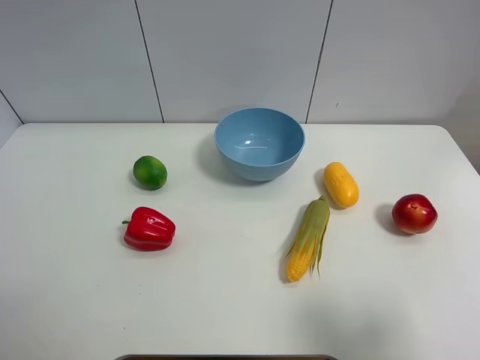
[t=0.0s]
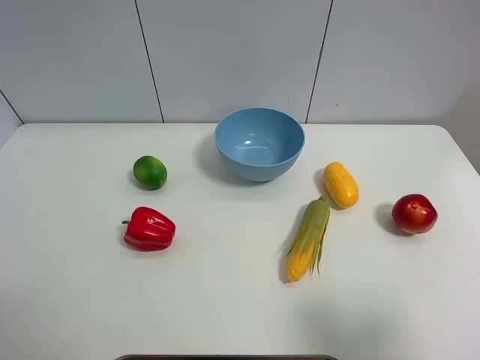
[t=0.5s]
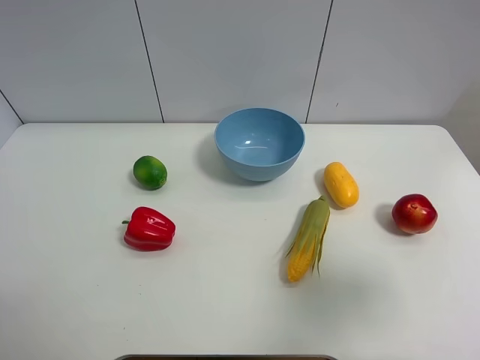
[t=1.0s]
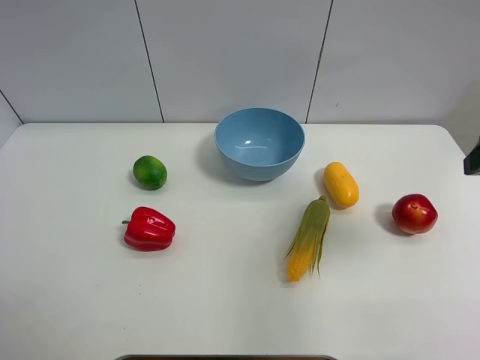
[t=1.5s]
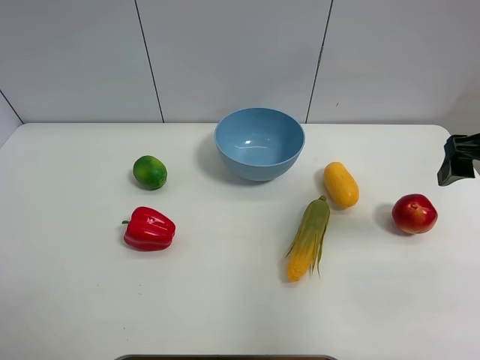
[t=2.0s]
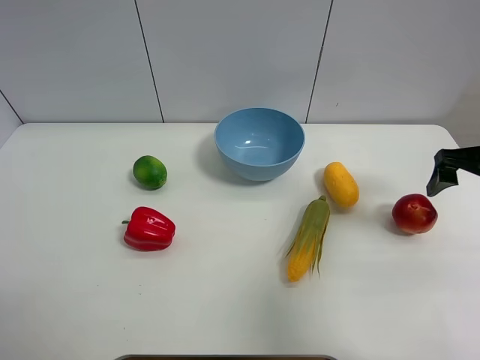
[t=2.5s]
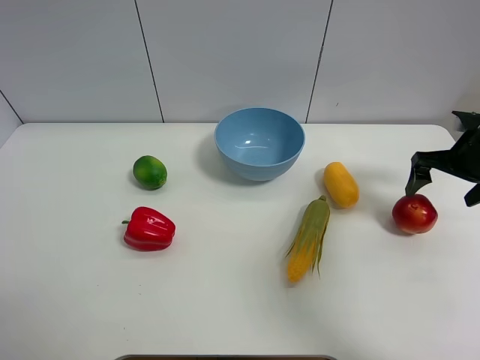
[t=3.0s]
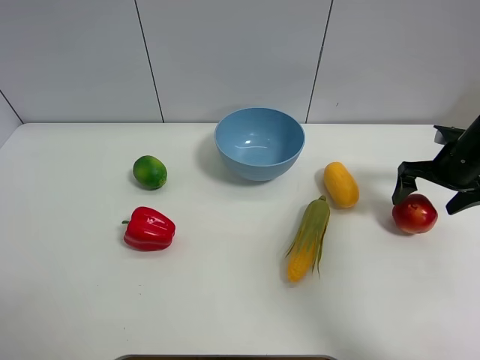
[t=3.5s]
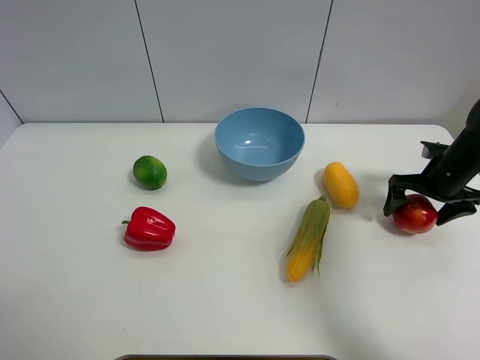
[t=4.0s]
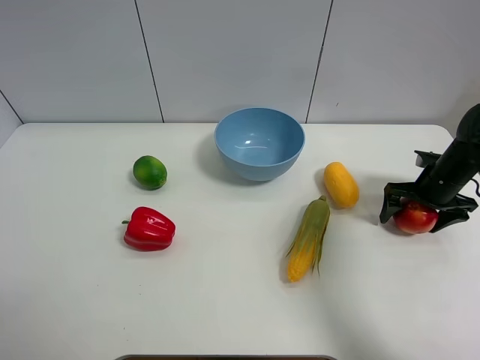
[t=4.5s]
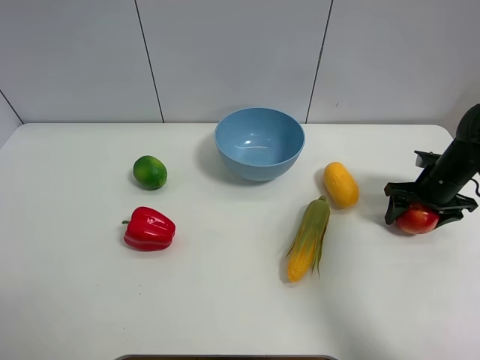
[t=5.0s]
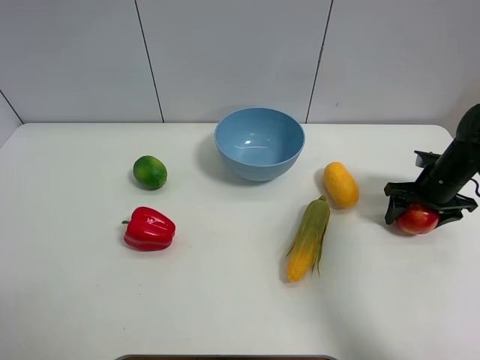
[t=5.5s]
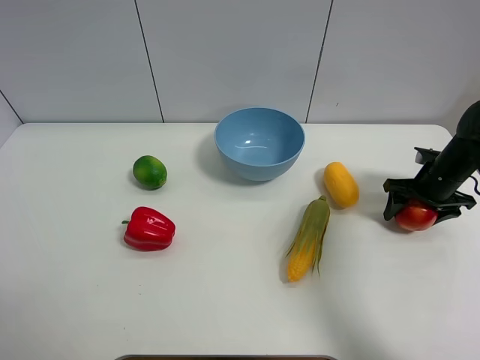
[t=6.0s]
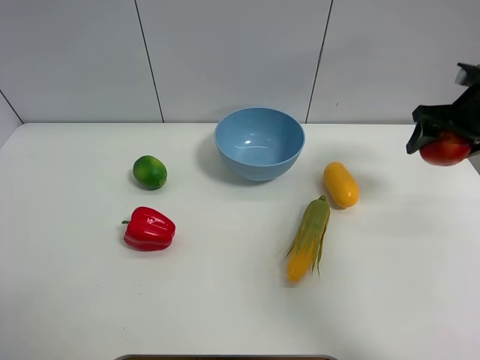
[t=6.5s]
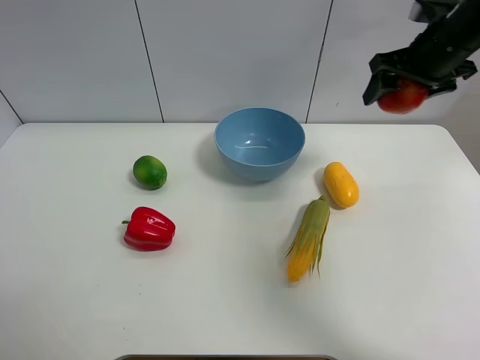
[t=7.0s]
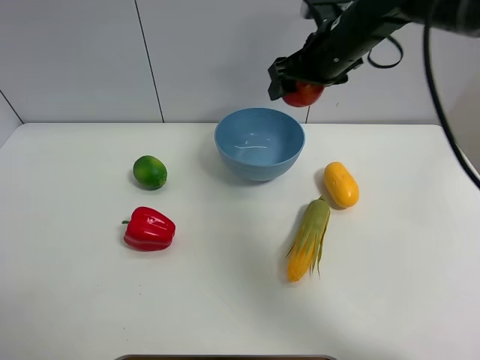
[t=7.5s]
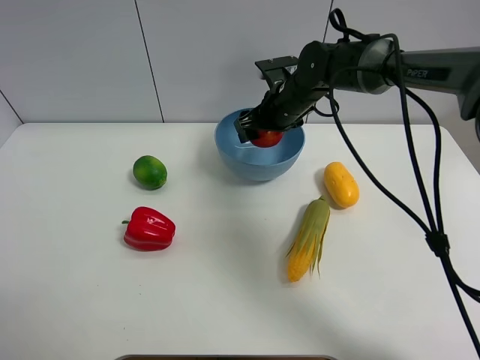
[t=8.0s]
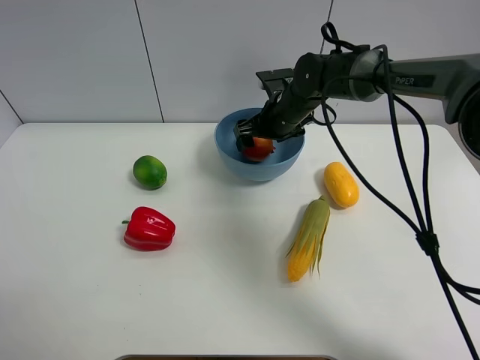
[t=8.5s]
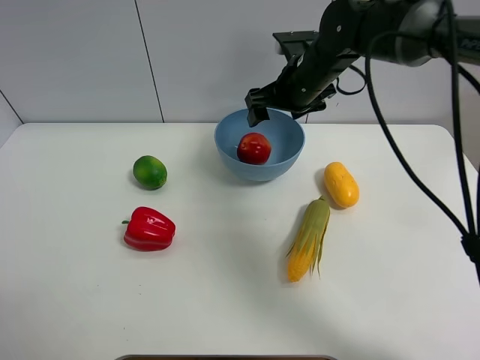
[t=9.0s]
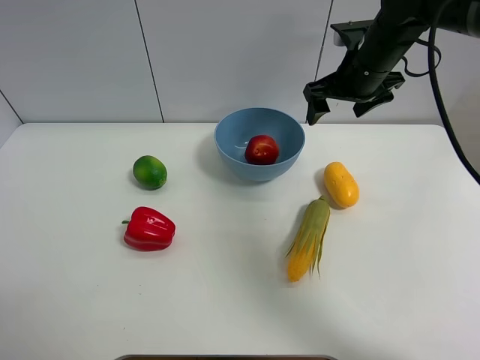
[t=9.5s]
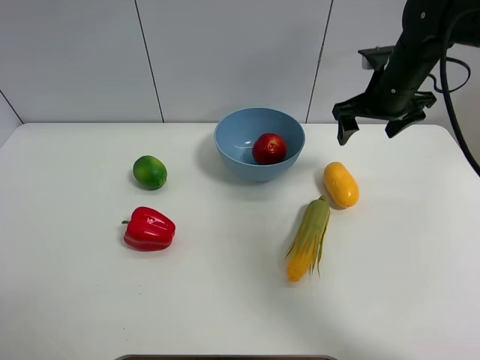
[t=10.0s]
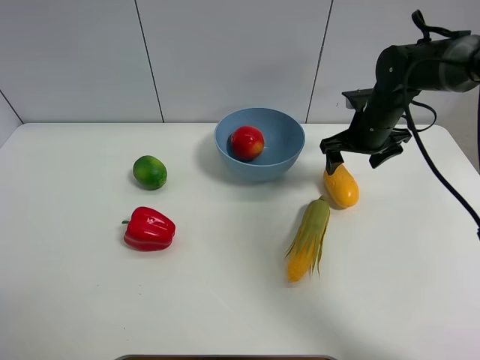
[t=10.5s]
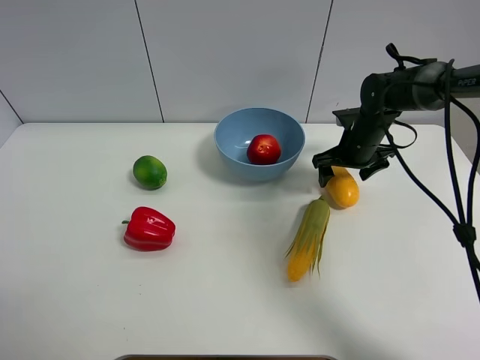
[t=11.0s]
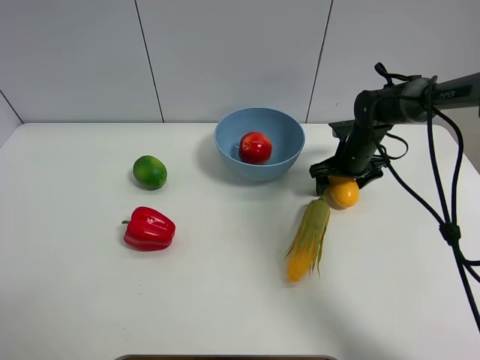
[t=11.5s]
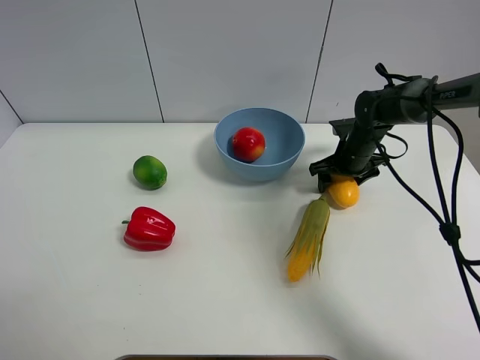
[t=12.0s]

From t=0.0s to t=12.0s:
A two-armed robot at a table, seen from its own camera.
Task of the whole recording: Put the three fruits on the table into a bowl.
Step, from t=0.0s to t=5.0s: Grasp the pomegranate with right gripper.
Step, from t=5.5s to t=8.5s: Place the pomegranate in the blue bowl with right gripper.
From t=0.0s to t=2.0s: The right gripper goes roughly 25 cm forward.
From t=2.0s to t=4.0s: The right gripper goes approximately 20 cm downward and forward.
From t=4.0s to t=6.0s: The right gripper closes.
From t=6.0s to t=8.0s: The right gripper heads to the left, covering roughly 30 cm.
From t=8.0s to t=10.0s: The right gripper goes about 15 cm to the right.
From t=10.0s to t=12.0s: The right gripper goes about 15 cm downward.

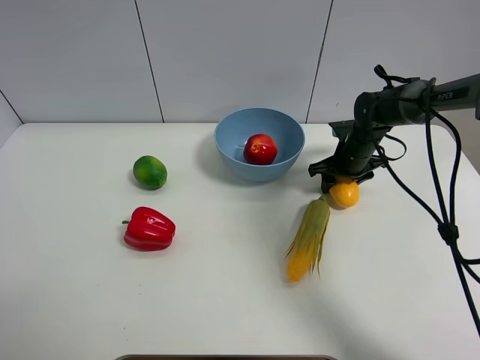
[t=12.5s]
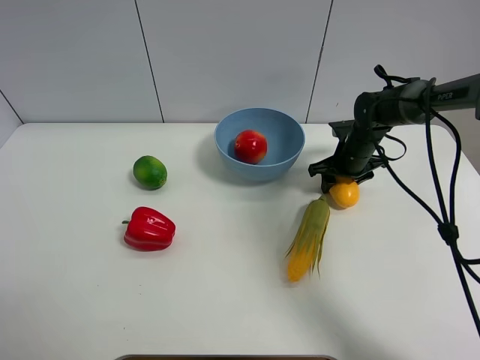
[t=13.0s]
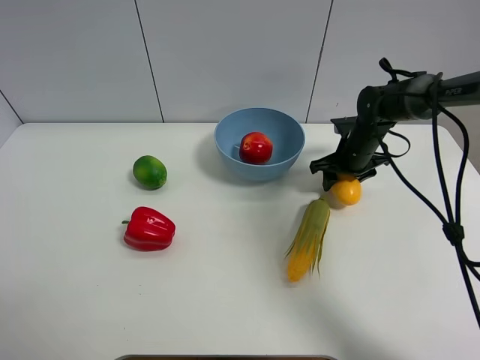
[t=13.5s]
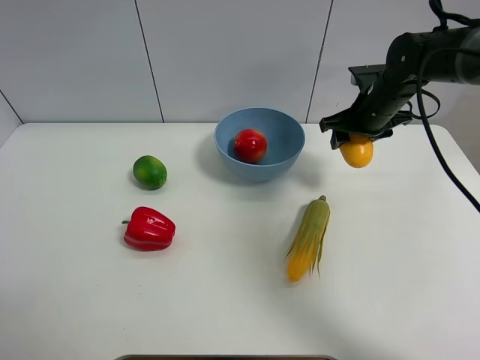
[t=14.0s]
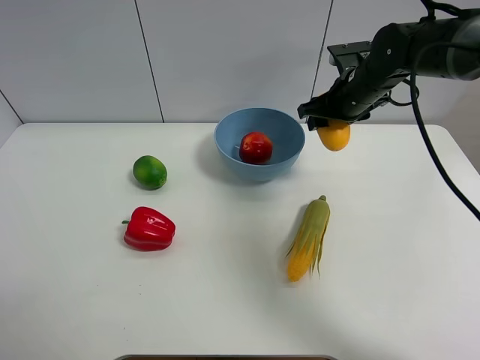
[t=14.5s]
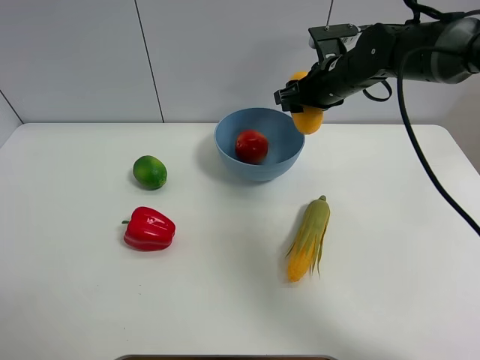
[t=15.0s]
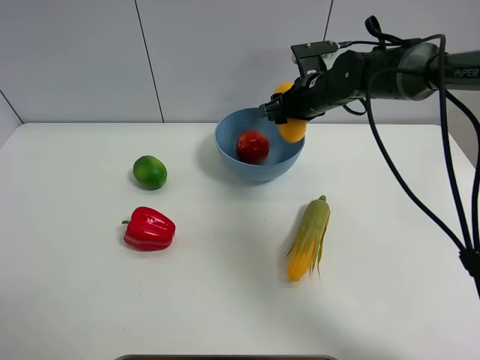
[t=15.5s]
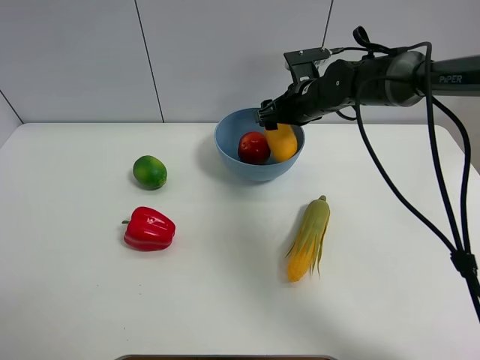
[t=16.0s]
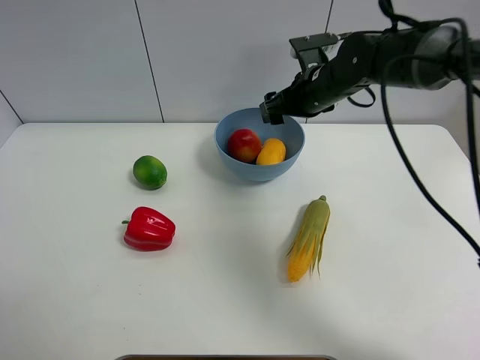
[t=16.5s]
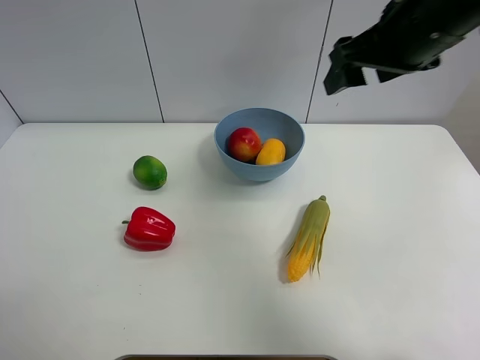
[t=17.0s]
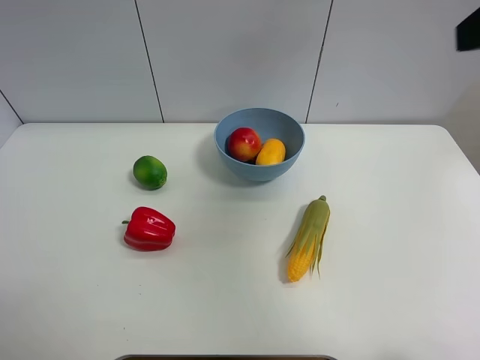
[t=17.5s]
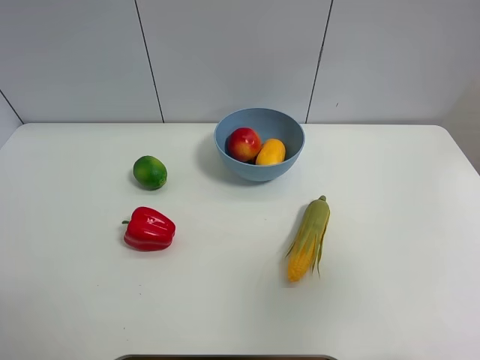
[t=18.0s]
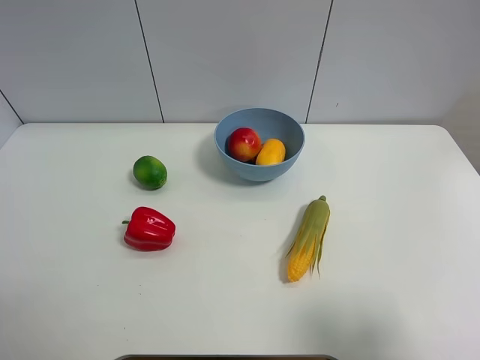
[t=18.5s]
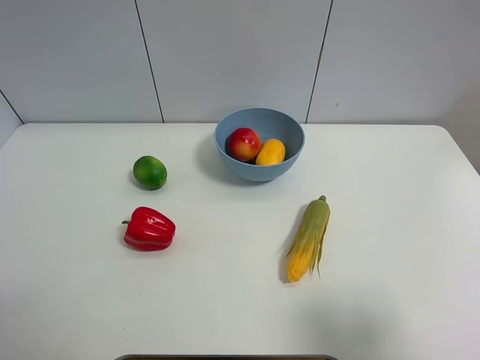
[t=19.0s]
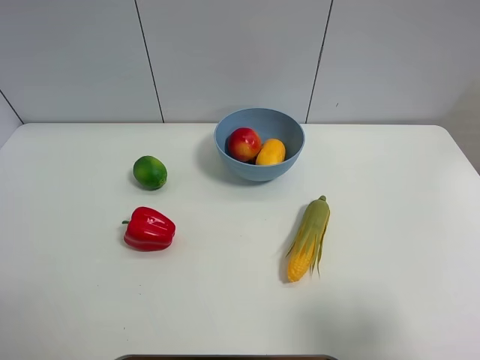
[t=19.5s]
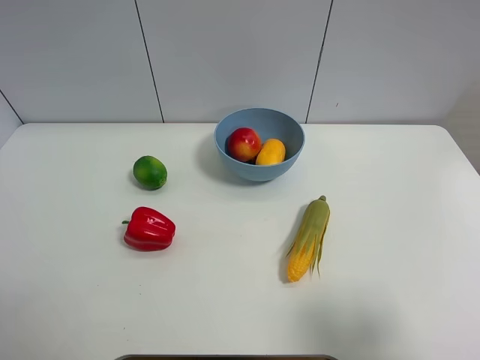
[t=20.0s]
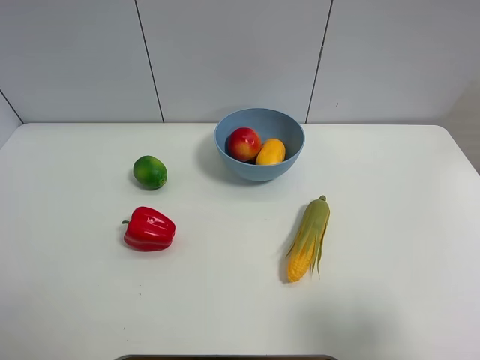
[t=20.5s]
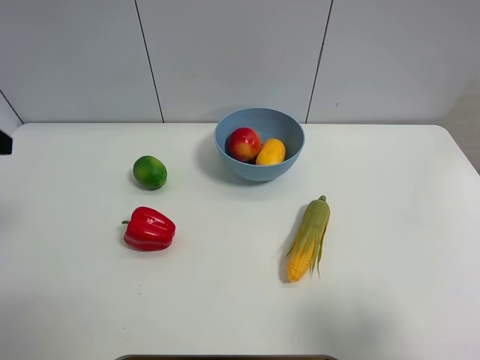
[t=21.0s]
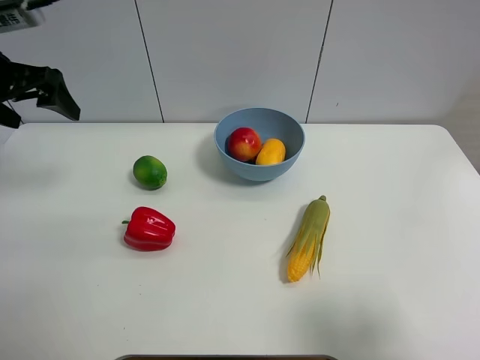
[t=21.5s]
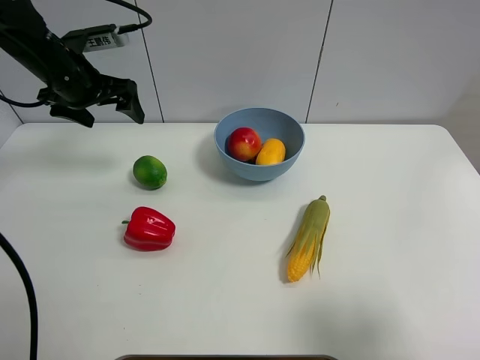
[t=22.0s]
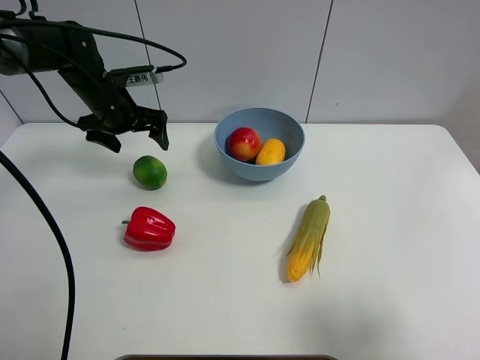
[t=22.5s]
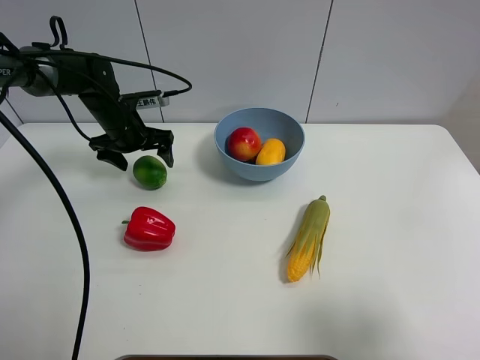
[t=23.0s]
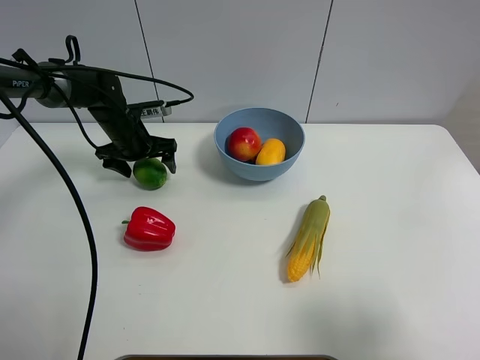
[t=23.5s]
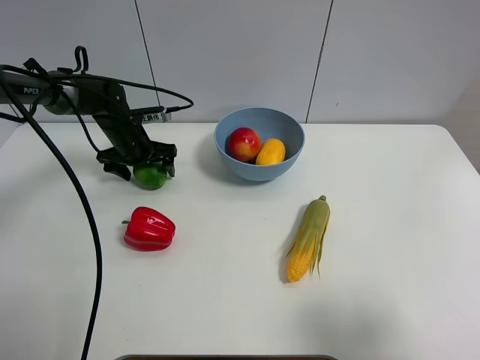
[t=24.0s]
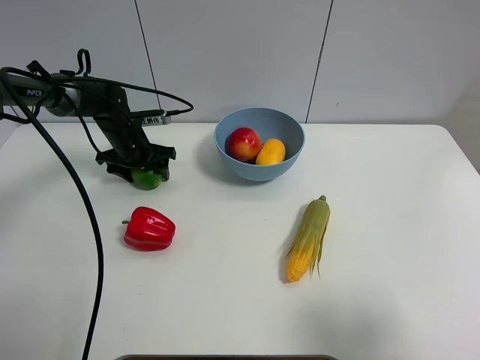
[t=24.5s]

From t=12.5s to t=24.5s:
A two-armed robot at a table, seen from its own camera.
Task of the whole recording: Put the three fruits on the table into a bowl.
Step, from t=12.5s to t=16.0s: Place the mango in the blue bowl with right gripper.
From t=12.5s to t=14.5s: The right gripper travels upward by approximately 15 cm.
From t=14.5s to t=16.5s: The right gripper moves some 5 cm, and opens up.
From t=16.5s to t=18.5s: The right gripper goes approximately 40 cm backward.
From t=20.5s to t=22.5s: The left gripper is displaced forward by roughly 40 cm.
From t=22.5s to t=24.5s: The left gripper heads downward, covering some 10 cm, and closes its fingers.

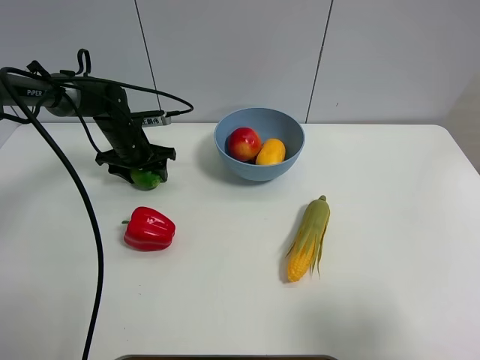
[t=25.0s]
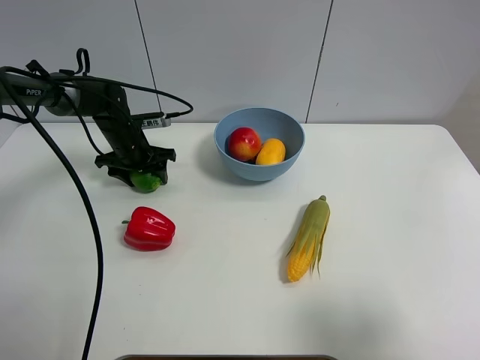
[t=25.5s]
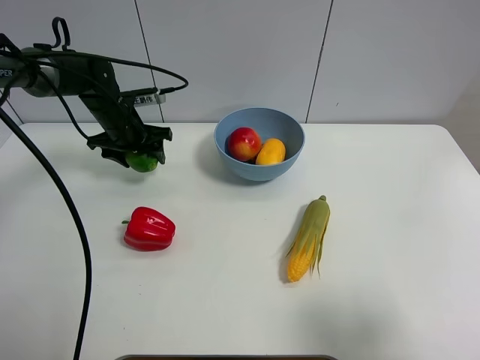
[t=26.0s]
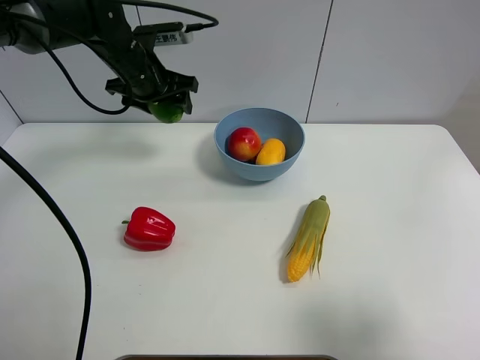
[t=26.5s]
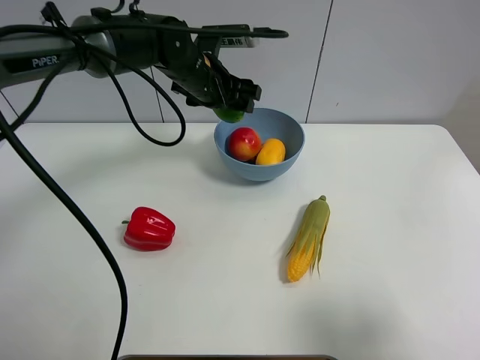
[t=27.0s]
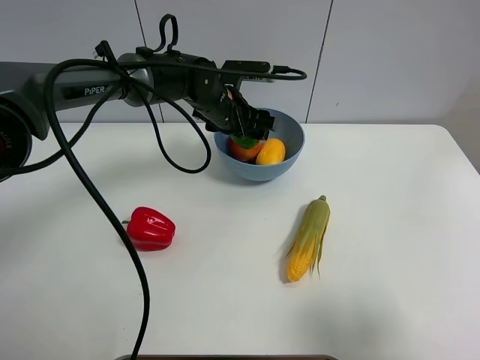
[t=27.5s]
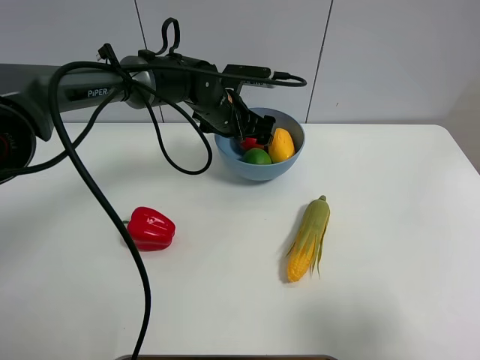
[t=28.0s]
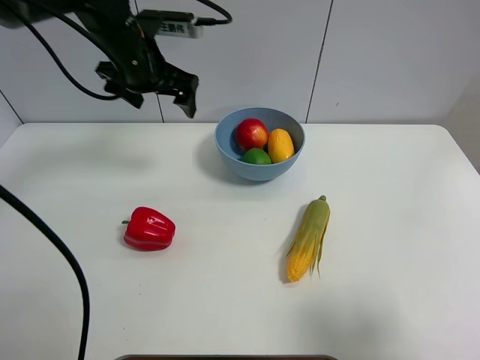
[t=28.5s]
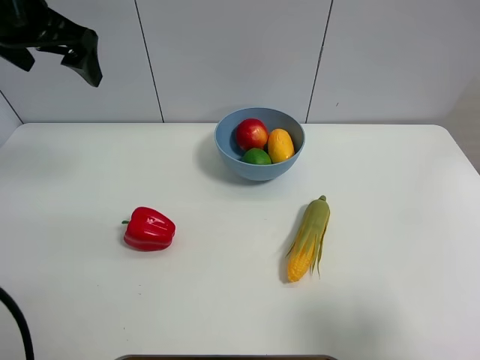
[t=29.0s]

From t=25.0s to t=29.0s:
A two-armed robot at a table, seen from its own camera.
Task of the whole recording: Put the three fruits on the table into a bowl.
Step, from t=25.0s to t=27.5s: Place the green lemon in the blue bowl with left gripper.
From t=25.0s to t=27.0s: The left gripper moves to the right and upward, some 20 cm.
From t=27.0s to t=29.0s: The left gripper is displaced to the left, upward and backward by roughly 25 cm, and opens up.
